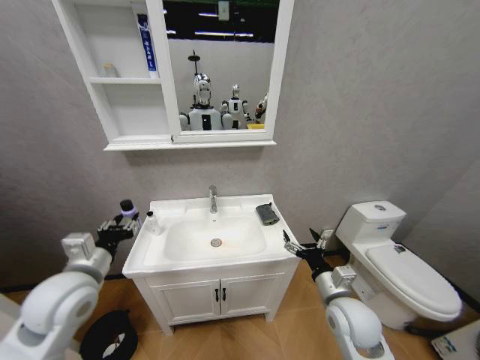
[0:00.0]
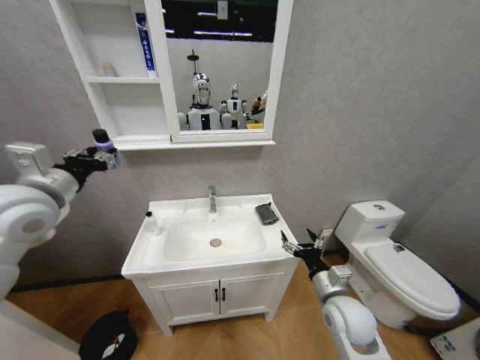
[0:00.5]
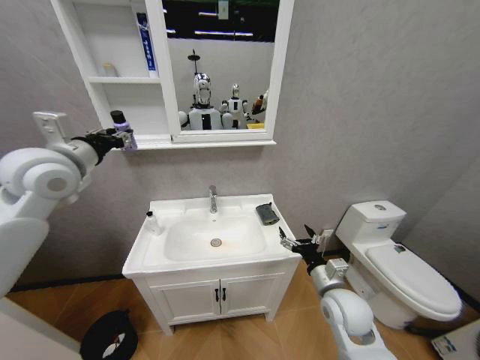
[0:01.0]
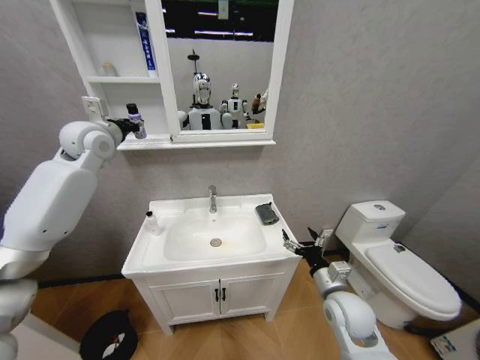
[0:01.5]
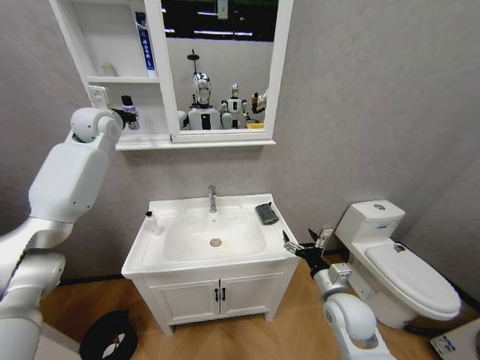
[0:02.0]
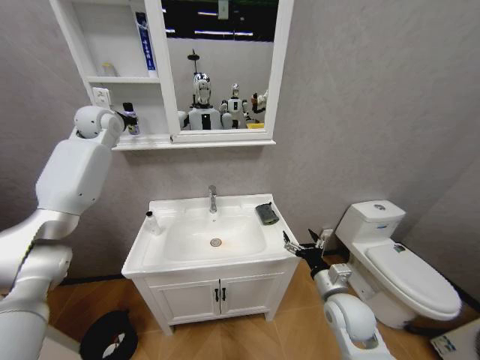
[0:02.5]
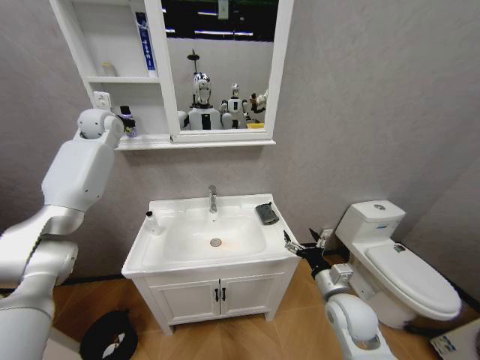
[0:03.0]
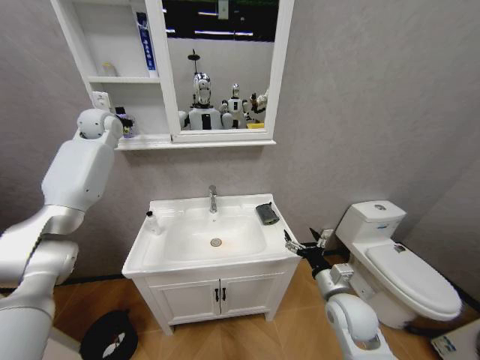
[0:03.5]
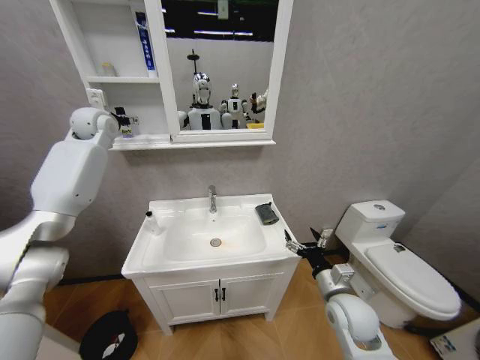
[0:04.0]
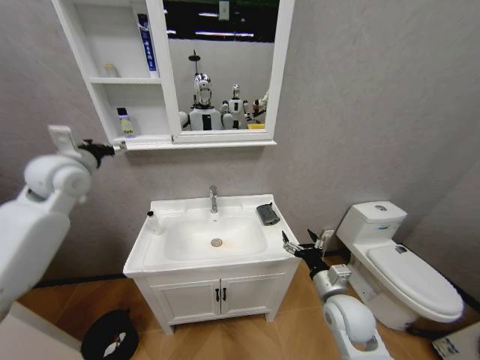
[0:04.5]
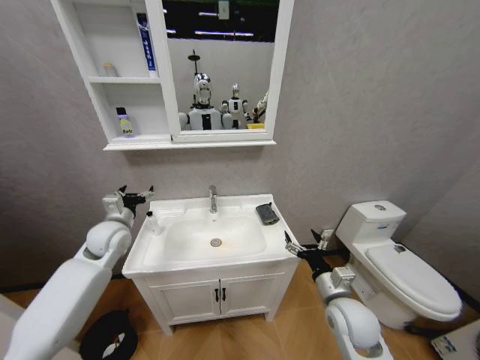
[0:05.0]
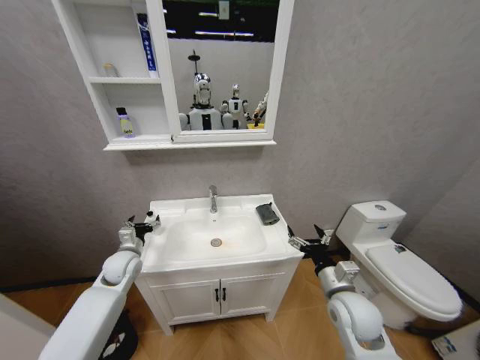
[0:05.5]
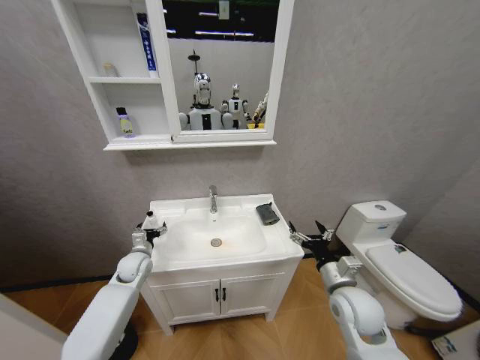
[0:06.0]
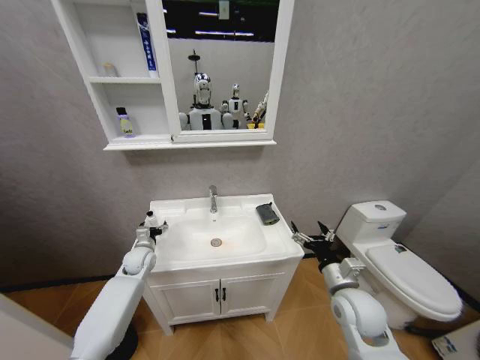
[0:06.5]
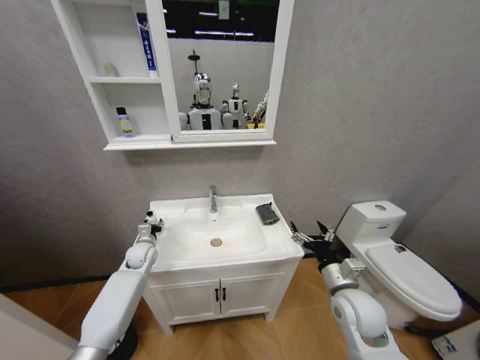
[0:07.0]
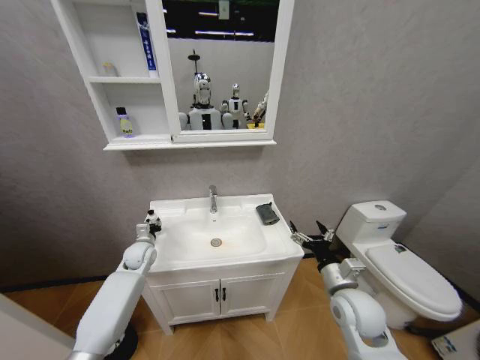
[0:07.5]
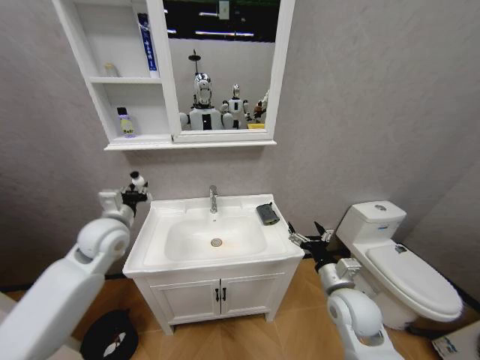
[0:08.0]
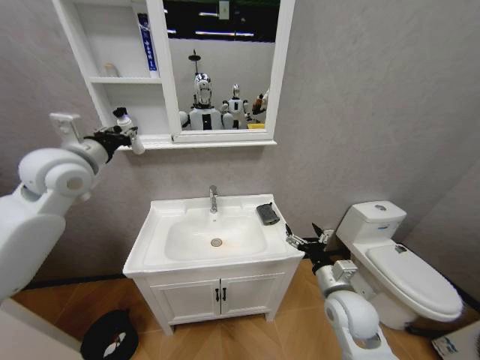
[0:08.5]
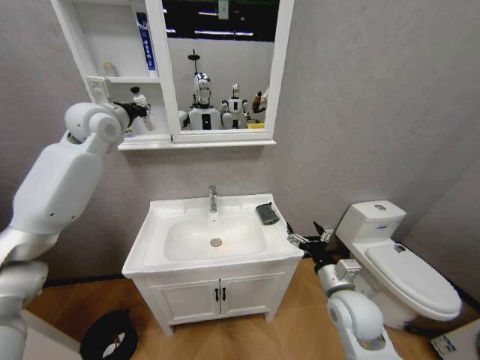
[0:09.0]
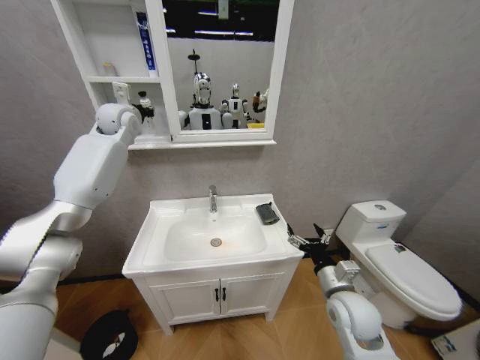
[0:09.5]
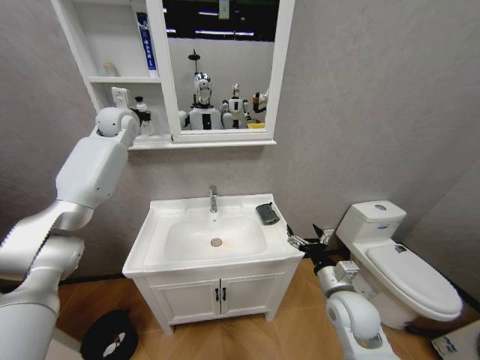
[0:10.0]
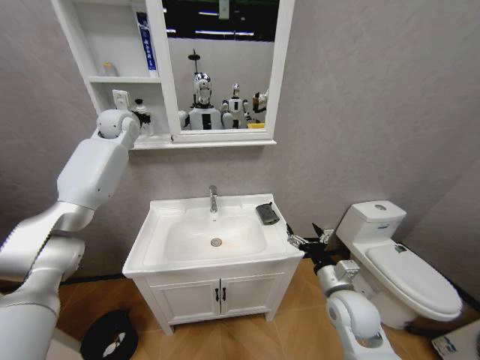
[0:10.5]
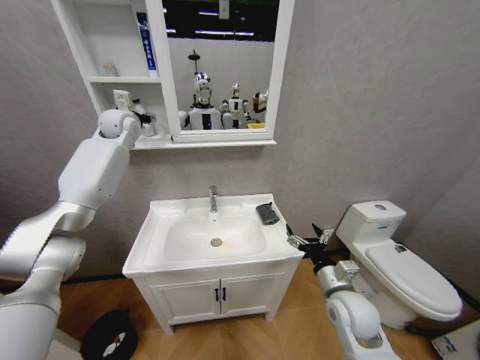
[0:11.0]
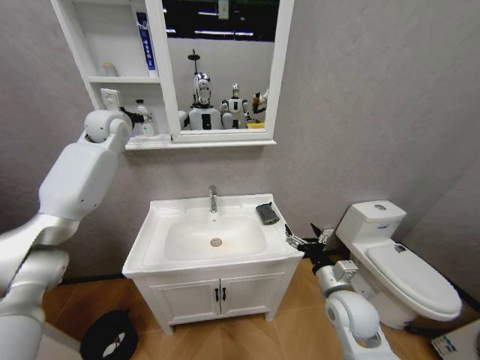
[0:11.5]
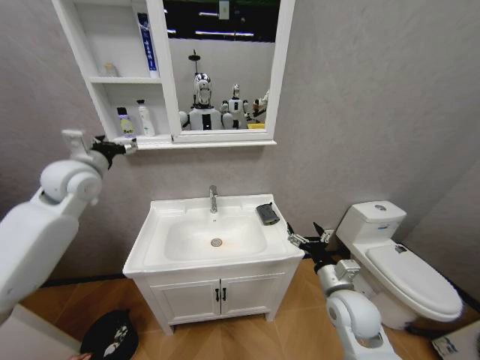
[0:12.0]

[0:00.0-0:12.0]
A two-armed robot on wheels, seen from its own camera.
Task of the whole recording: Move facial cleanser and shampoo from washbasin to cabinet, then wipe washbasin with towel.
0.0 to 2.0 s: The left gripper is displaced forward and upward by some 40 cm.
2.0 to 4.0 s: The left gripper opens up.
4.0 to 6.0 s: The left gripper heads downward and backward, covering approximately 40 cm.
6.0 to 8.0 s: The left gripper shifts approximately 20 cm upward, and closes.
8.0 to 10.0 s: The left gripper is displaced forward and upward by roughly 30 cm.
10.0 to 12.0 s: The left gripper goes some 20 cm backward and downward, and opens its fingers.

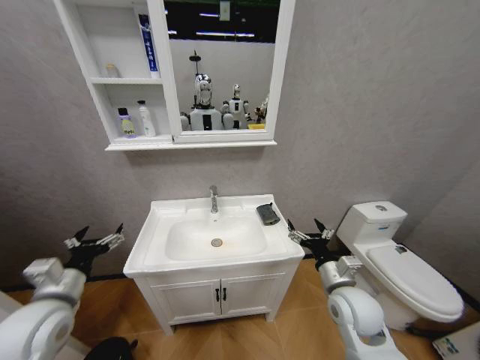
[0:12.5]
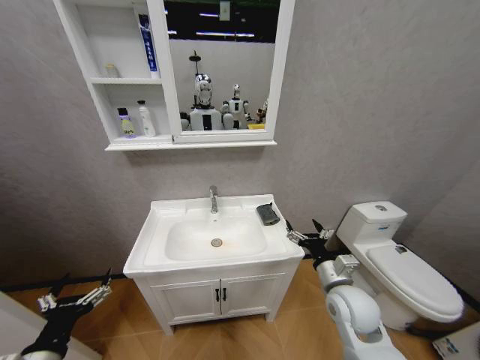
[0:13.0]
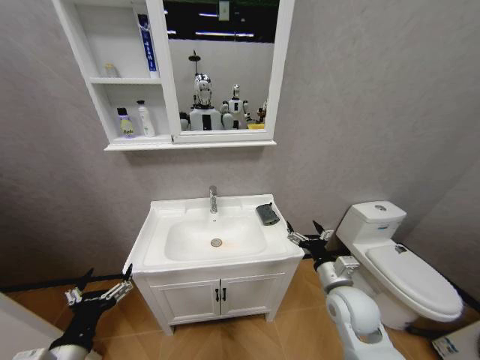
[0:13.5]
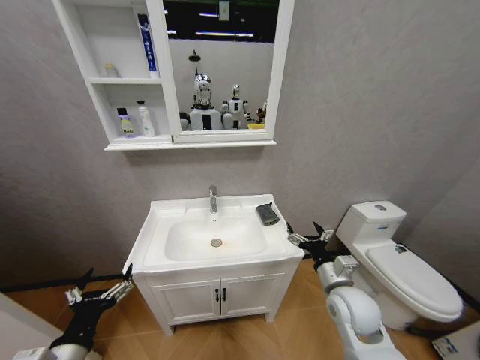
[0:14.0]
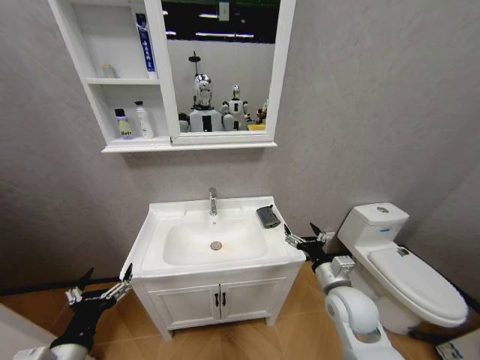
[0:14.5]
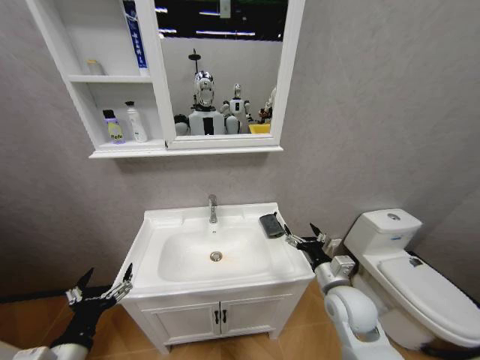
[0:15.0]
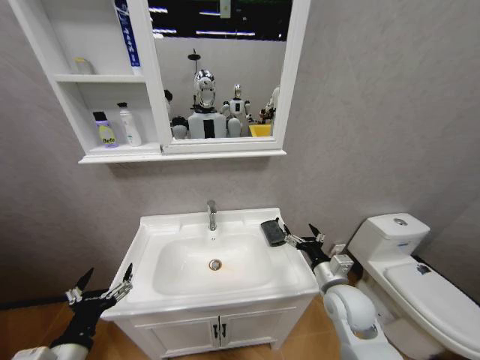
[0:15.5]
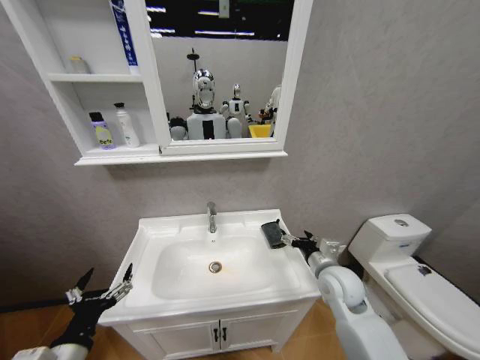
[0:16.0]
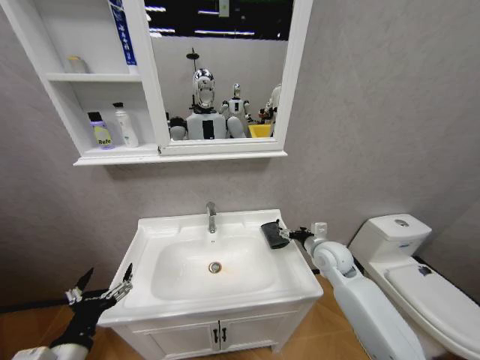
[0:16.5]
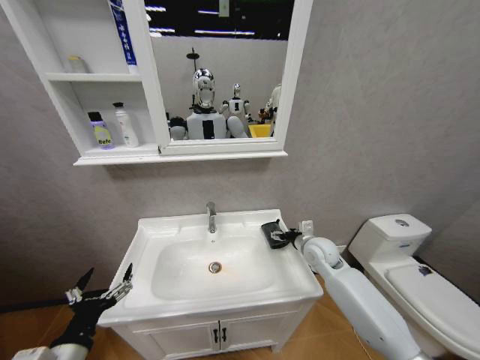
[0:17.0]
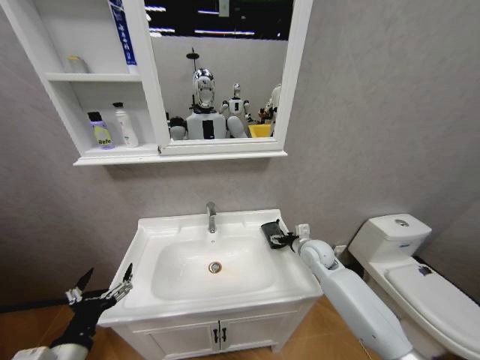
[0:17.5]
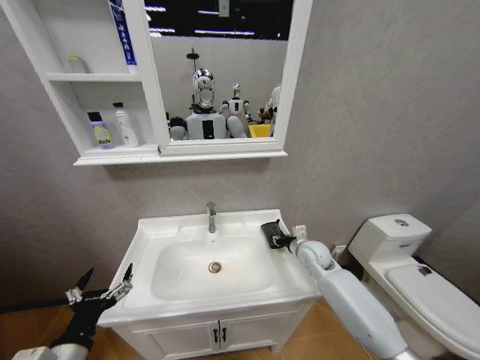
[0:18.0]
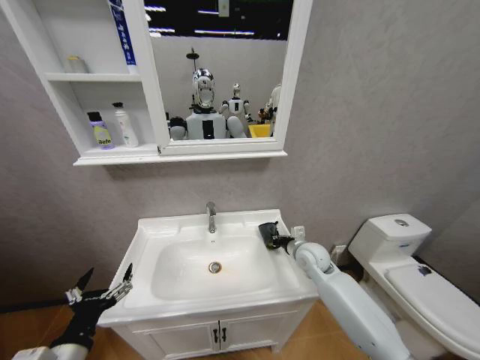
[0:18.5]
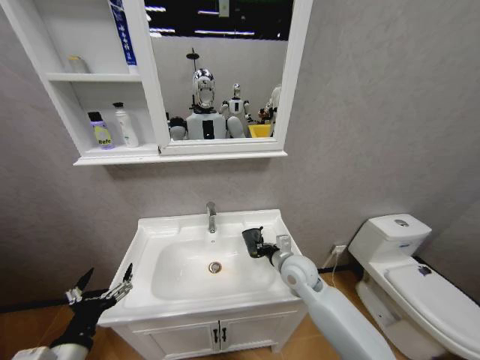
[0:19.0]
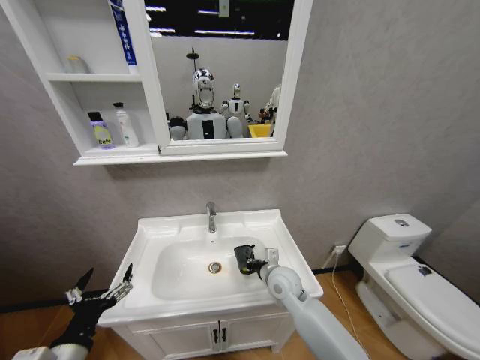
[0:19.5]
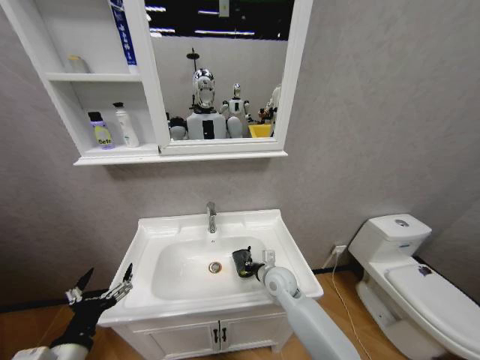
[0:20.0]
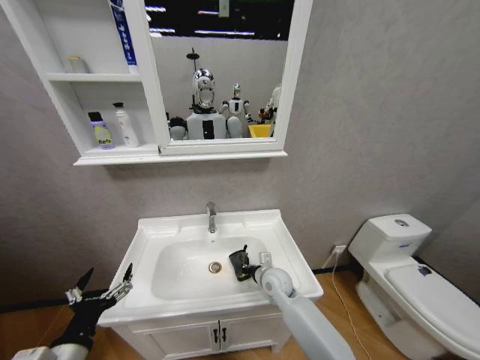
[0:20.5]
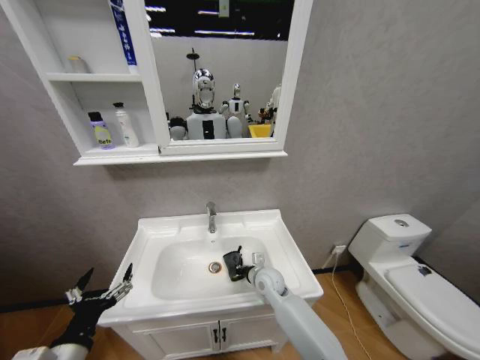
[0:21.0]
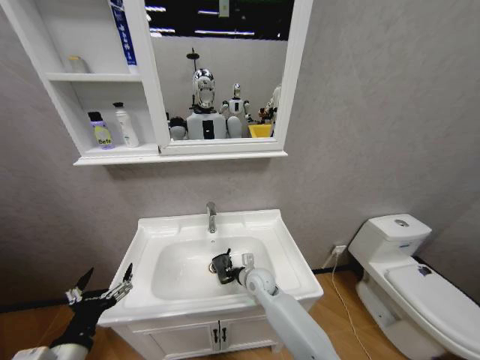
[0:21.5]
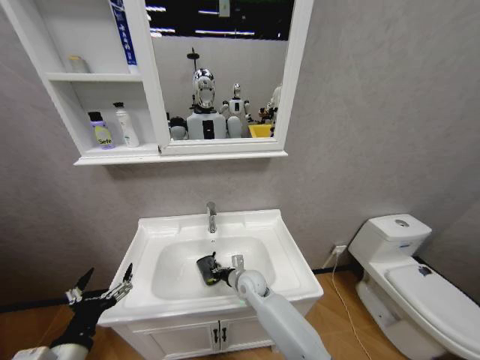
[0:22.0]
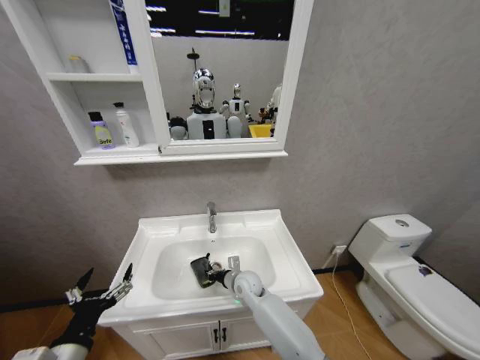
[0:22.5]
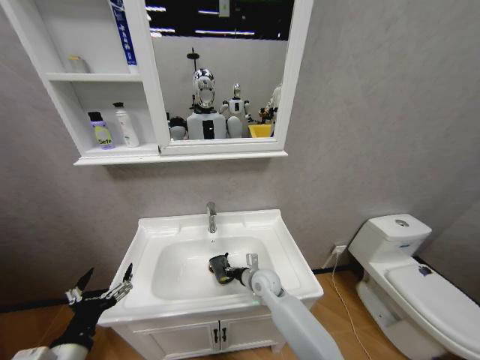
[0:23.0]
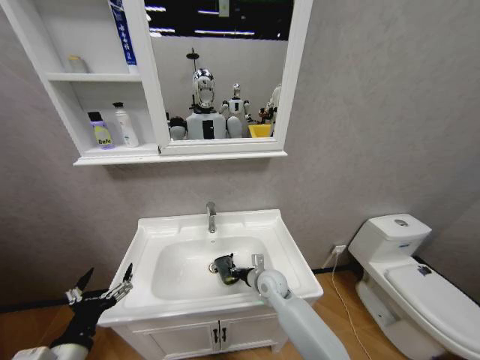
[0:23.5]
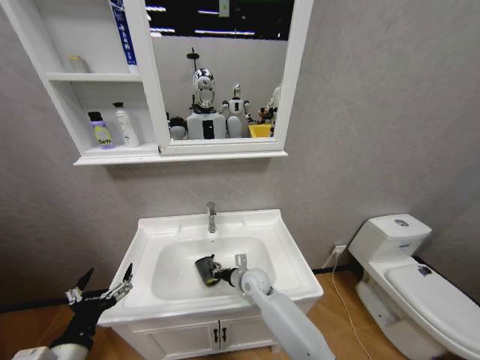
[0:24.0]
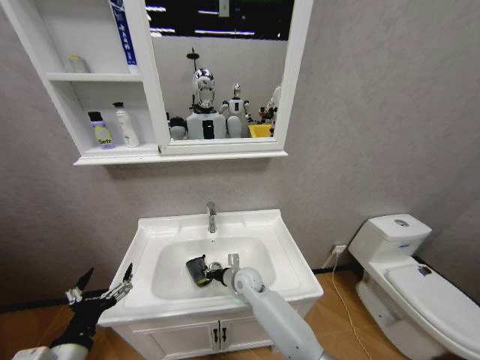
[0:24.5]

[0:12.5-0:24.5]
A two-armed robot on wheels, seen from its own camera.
Task of the whole recording: Move facial cleanser and shampoo from washbasin to cabinet, then wipe washbasin with towel.
12.5 to 14.5 s: The left gripper travels backward and to the right by about 15 cm.
14.5 to 16.5 s: The right gripper is displaced forward by approximately 15 cm.
16.5 to 18.5 s: The right gripper moves roughly 5 cm, and closes up.
18.5 to 20.5 s: The right gripper shifts approximately 15 cm to the left and downward.
20.5 to 22.5 s: The right gripper goes about 10 cm to the left.

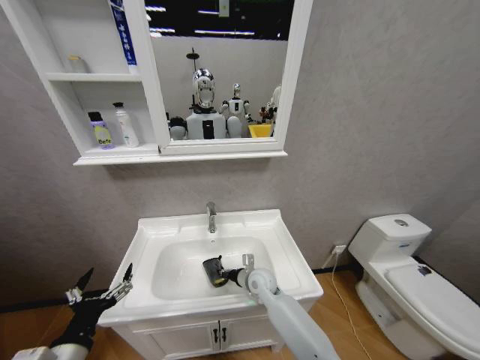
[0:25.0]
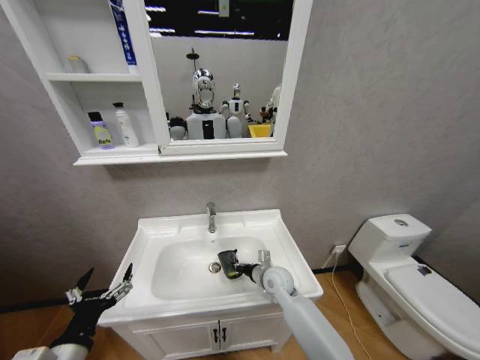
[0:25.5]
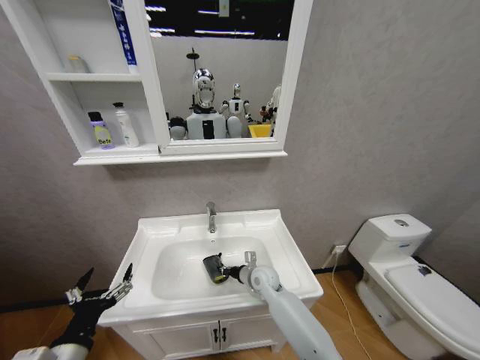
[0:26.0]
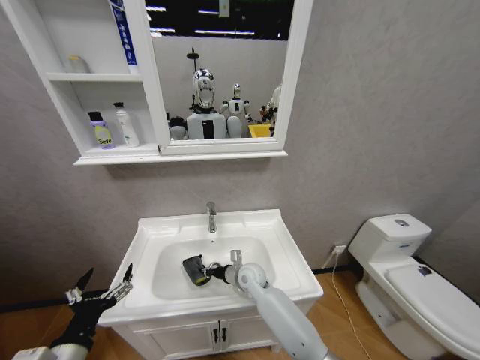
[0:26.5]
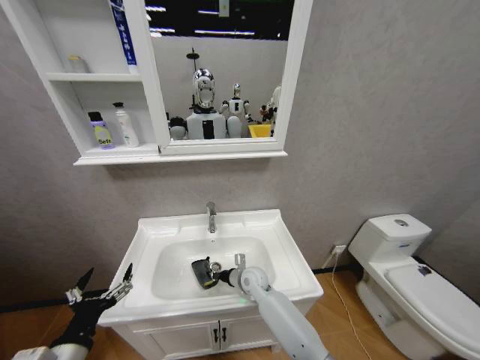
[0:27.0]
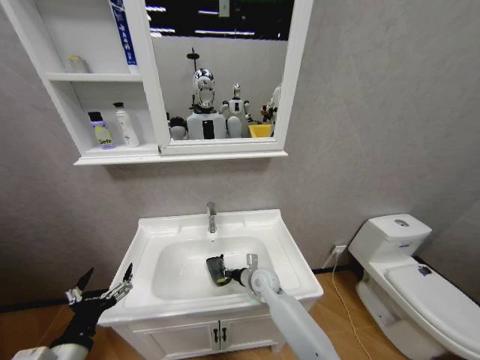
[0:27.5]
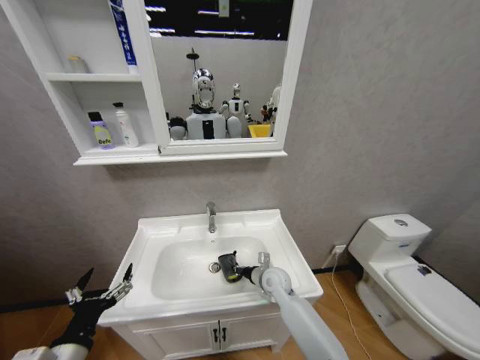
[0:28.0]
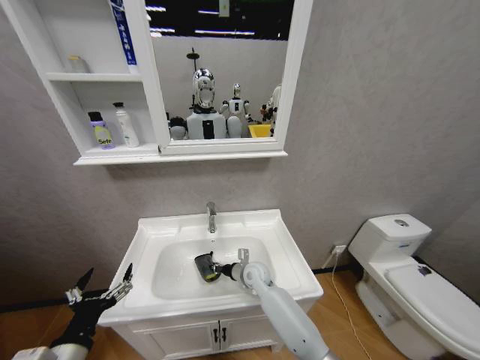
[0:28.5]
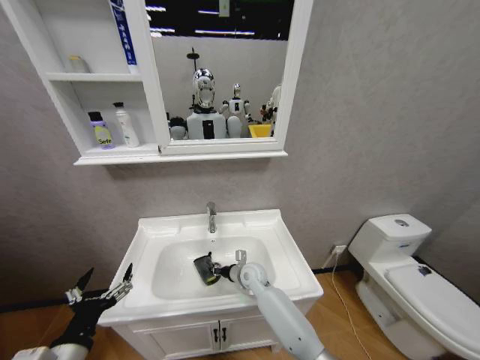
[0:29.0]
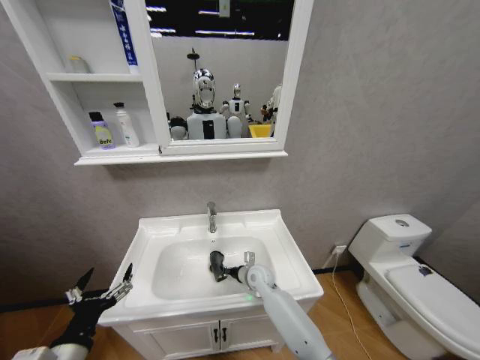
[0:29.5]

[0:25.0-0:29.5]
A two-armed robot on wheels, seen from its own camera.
Task of the whole recording: Move facial cleanser and shampoo from washbasin to cabinet, then wipe washbasin with towel.
25.0 to 27.0 s: The right gripper moves roughly 5 cm to the right and comes back.
